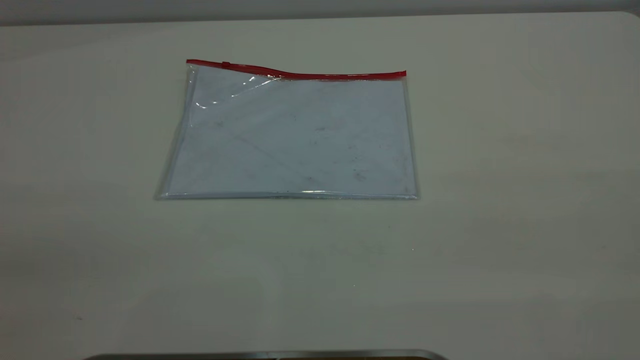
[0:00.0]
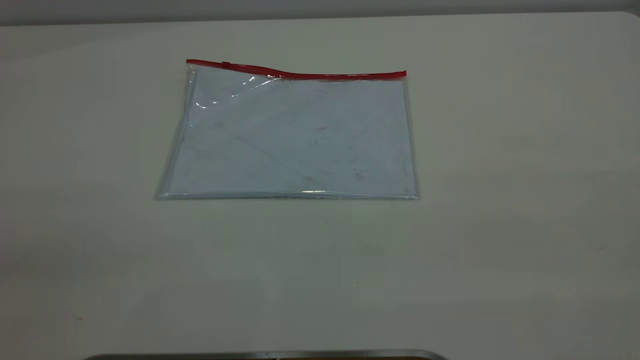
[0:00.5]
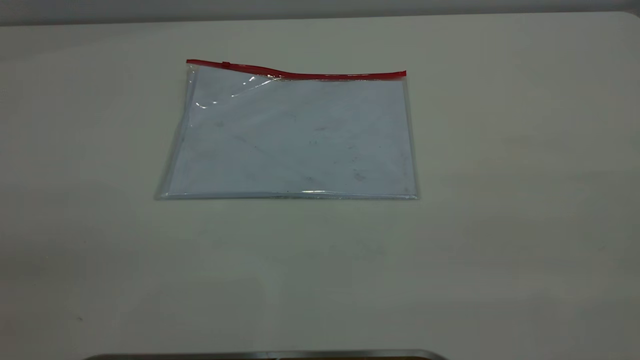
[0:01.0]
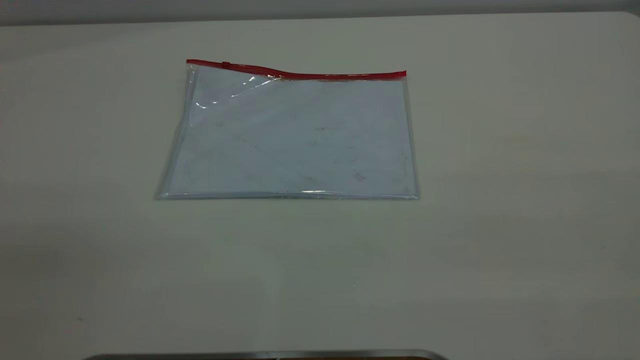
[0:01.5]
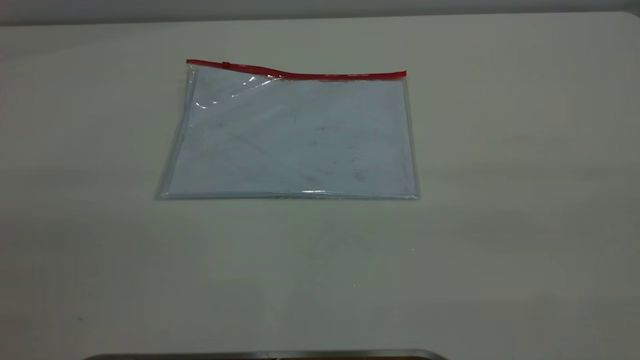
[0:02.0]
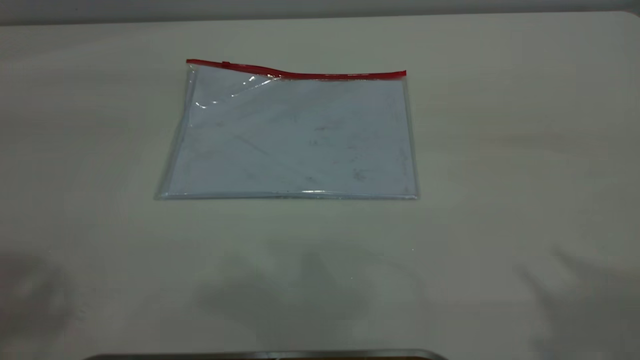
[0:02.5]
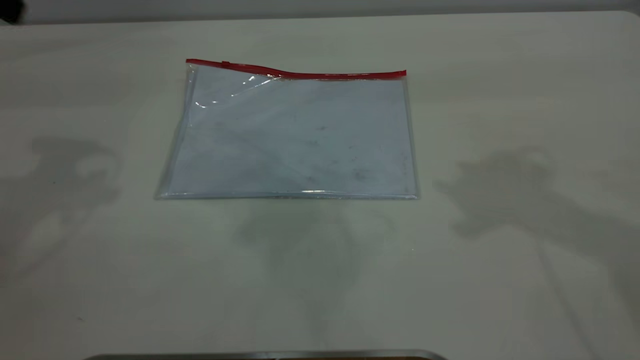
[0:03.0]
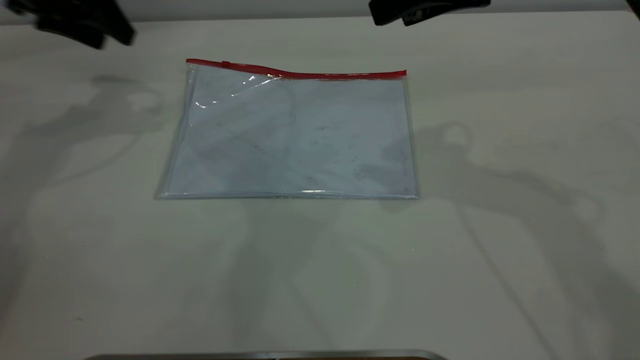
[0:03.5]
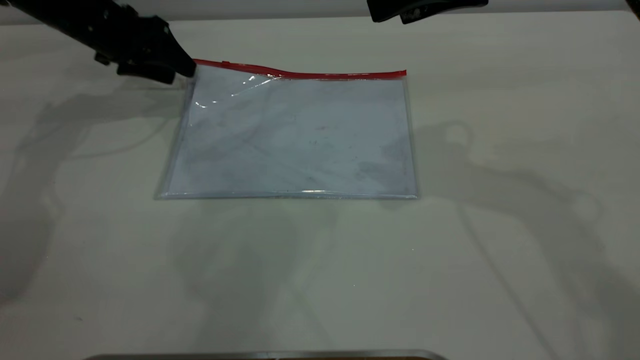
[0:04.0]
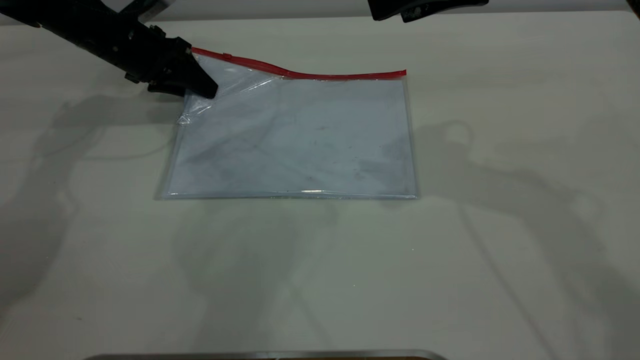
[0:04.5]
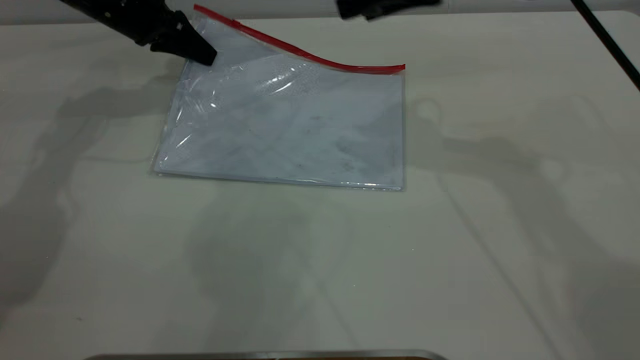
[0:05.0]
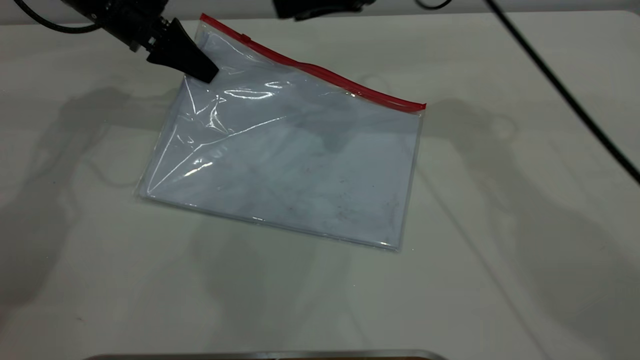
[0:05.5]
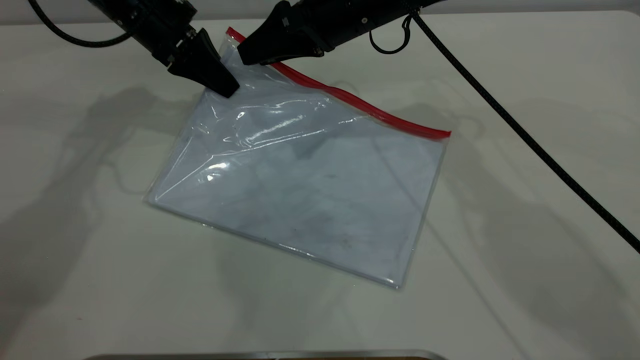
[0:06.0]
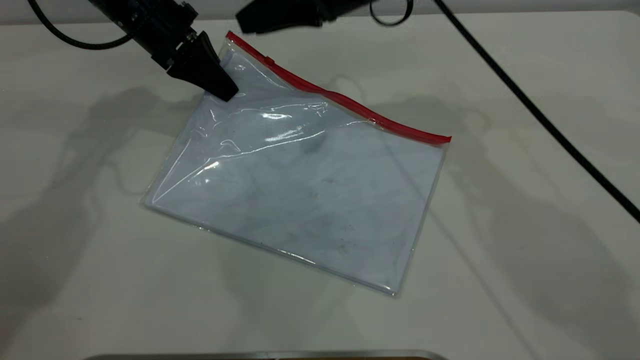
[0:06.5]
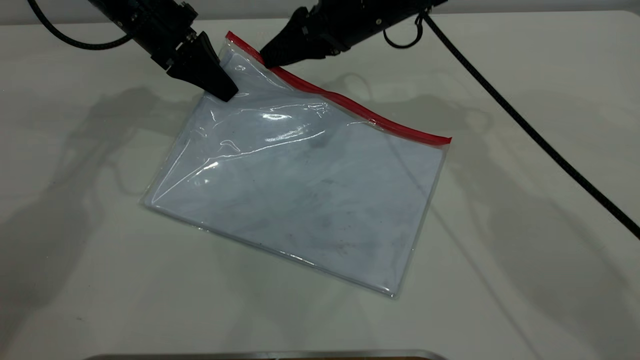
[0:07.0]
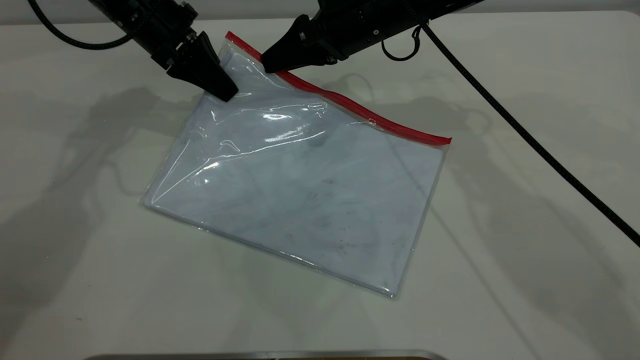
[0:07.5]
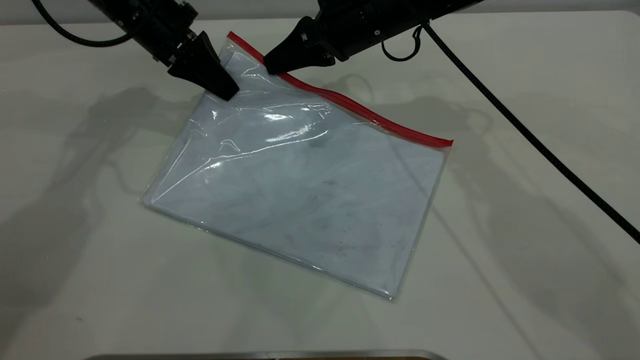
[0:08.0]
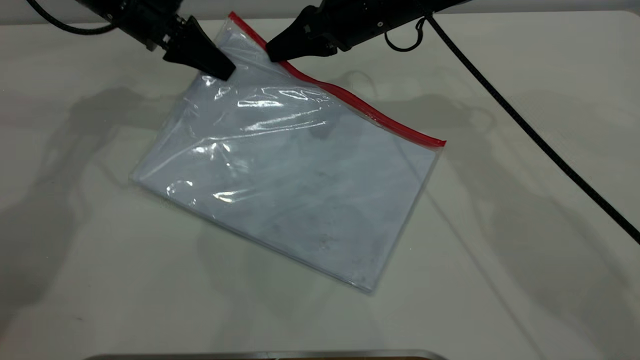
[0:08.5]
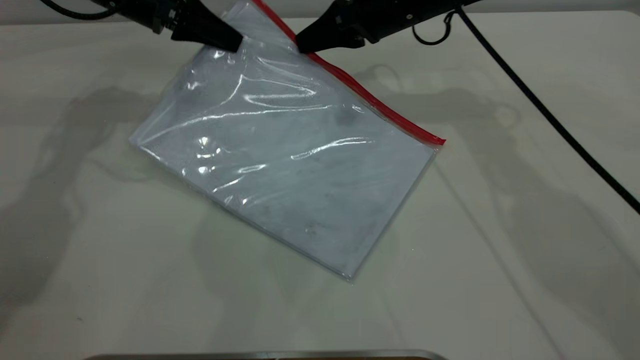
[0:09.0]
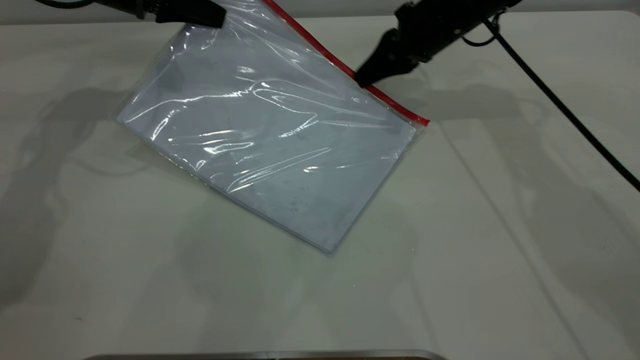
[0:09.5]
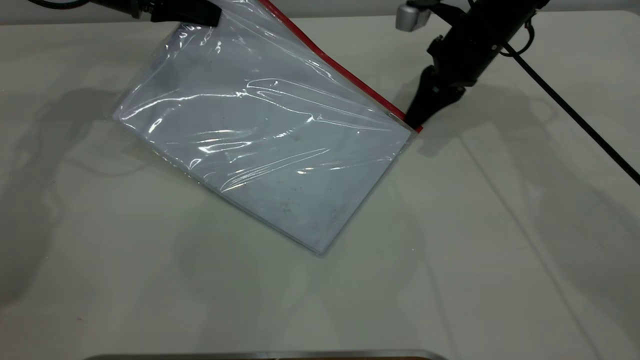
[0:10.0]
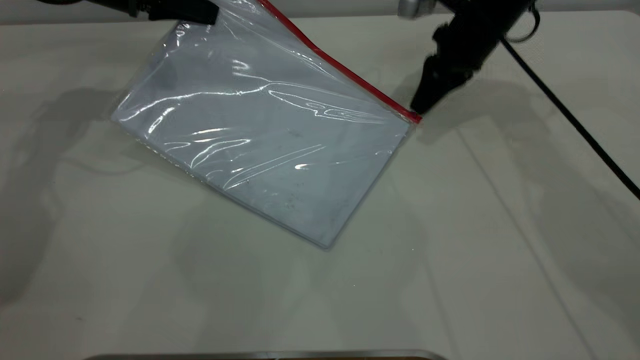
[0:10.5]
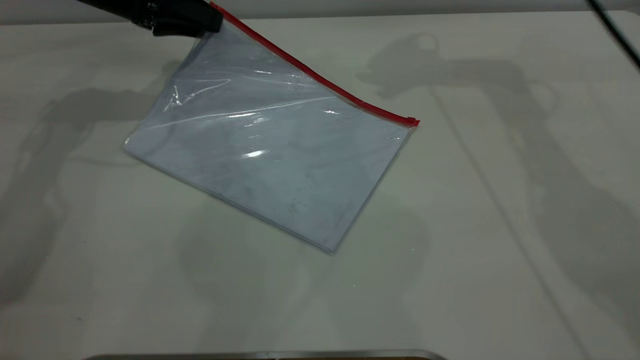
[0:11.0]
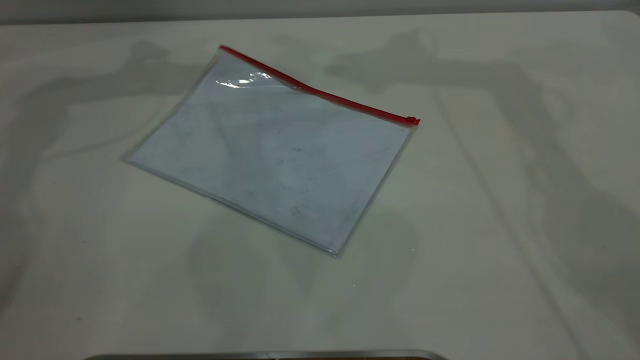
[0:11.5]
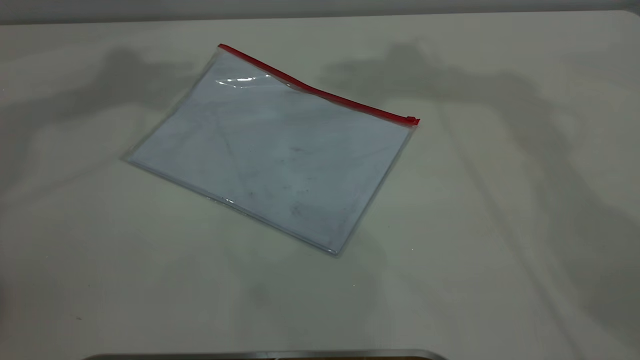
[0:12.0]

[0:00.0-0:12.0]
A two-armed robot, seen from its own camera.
Step, 0:00.0 to 0:04.5: Pick up the transparent plastic bag with the left gripper.
Step, 0:05.0 to 0:10.5: Pulling up the zipper on the transparent plastic bag with the right gripper to close it.
Step, 0:11.0 to 0:11.5: Place the transparent plastic bag.
0:02.0 to 0:04.0: The right gripper goes some 35 cm forward, while the left gripper goes approximately 60 cm forward and downward.
0:04.0 to 0:06.0: The right gripper is displaced to the left, downward and forward by approximately 20 cm; the left gripper shifts some 10 cm to the right, and closes.
0:06.0 to 0:08.0: The right gripper closes.
0:08.0 to 0:10.0: The left gripper goes approximately 5 cm to the left; the right gripper goes roughly 15 cm to the right.
0:10.0 to 0:12.0: The two grippers go some 35 cm upward. The left gripper opens up; the right gripper opens.

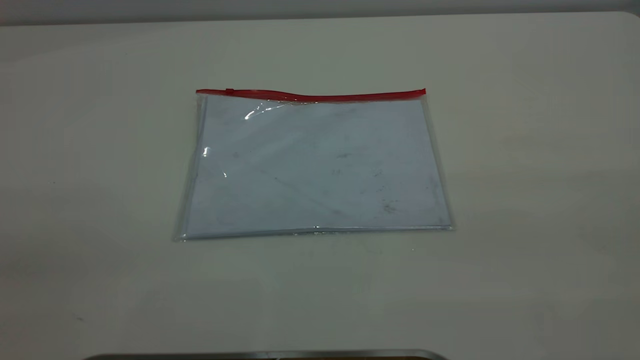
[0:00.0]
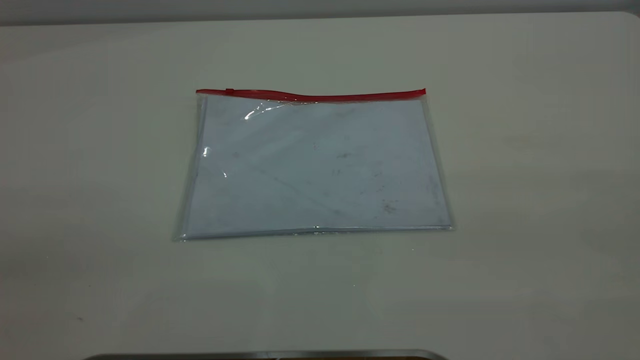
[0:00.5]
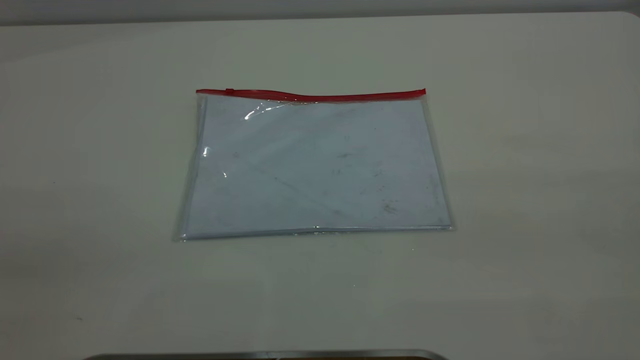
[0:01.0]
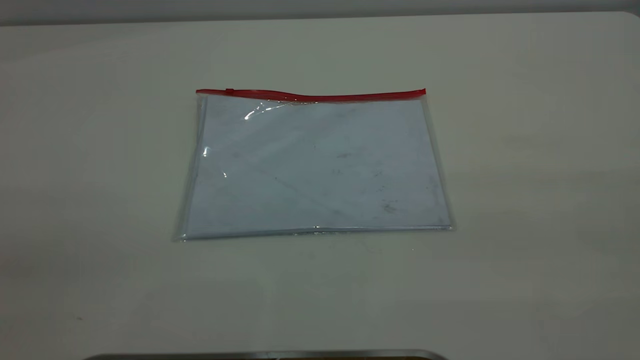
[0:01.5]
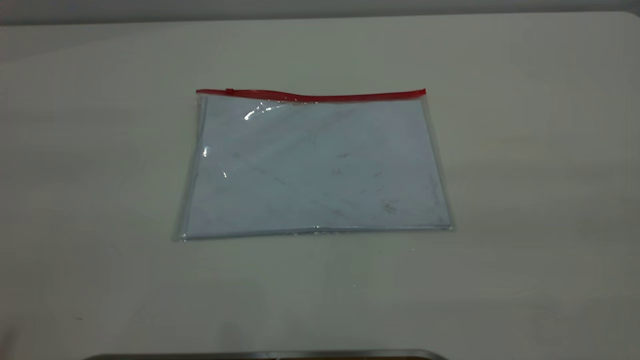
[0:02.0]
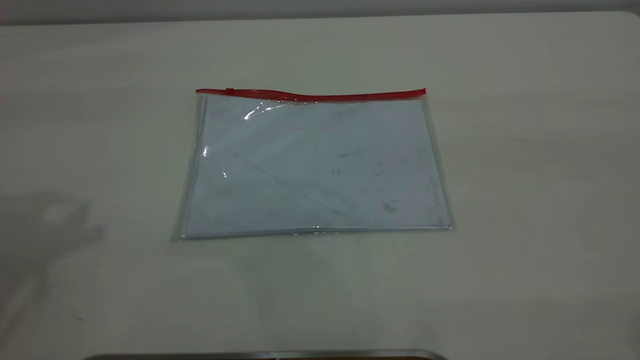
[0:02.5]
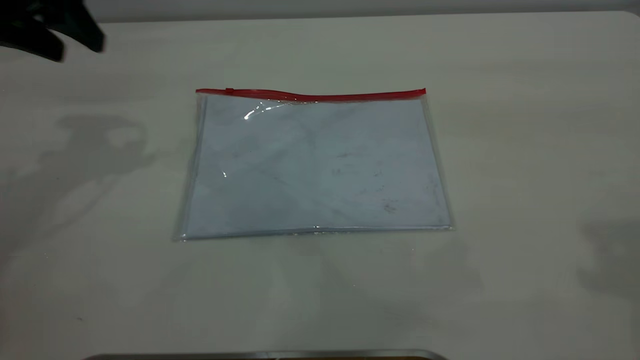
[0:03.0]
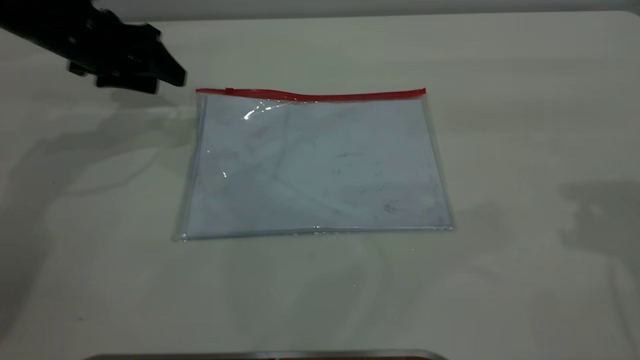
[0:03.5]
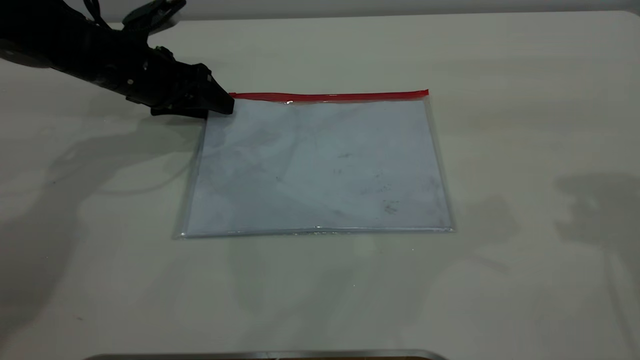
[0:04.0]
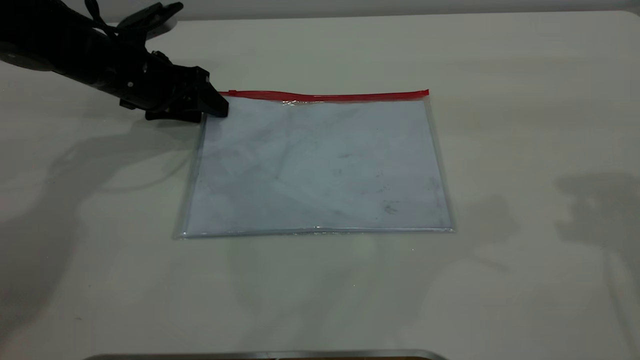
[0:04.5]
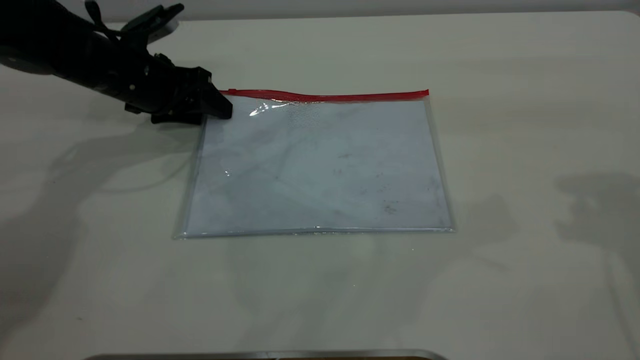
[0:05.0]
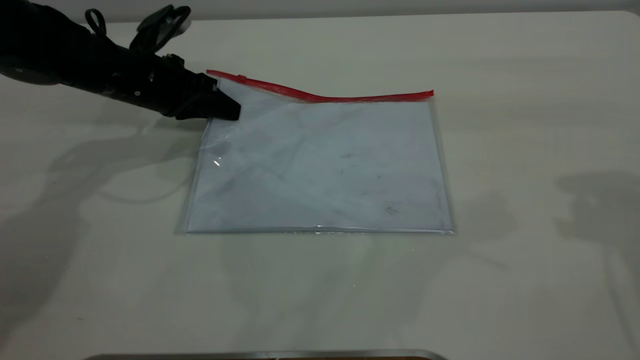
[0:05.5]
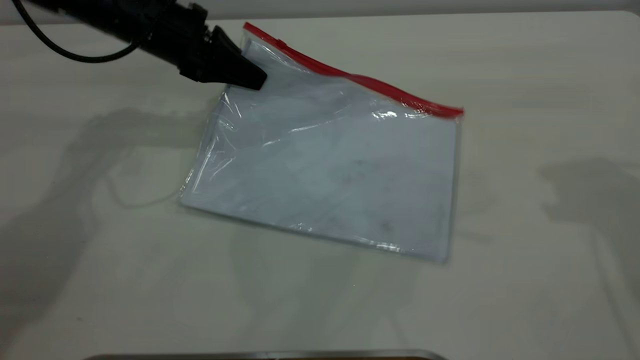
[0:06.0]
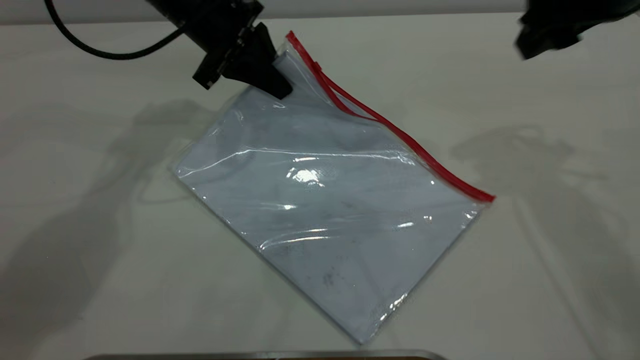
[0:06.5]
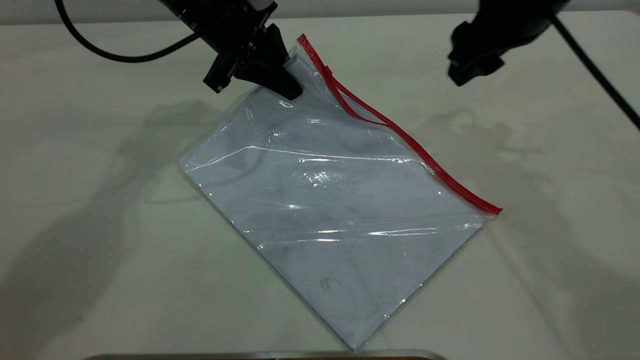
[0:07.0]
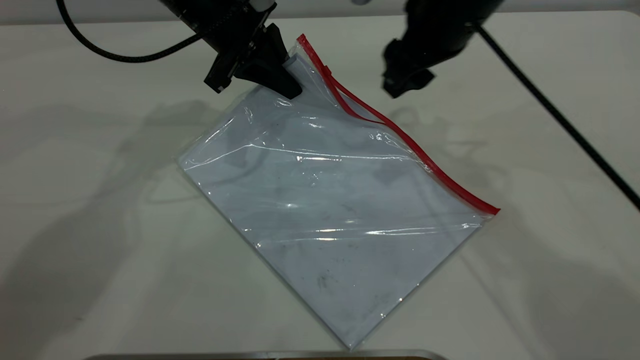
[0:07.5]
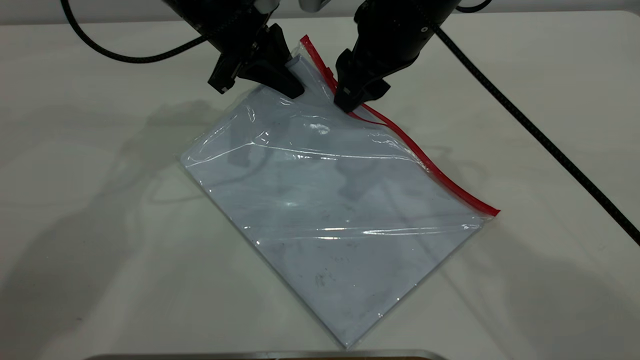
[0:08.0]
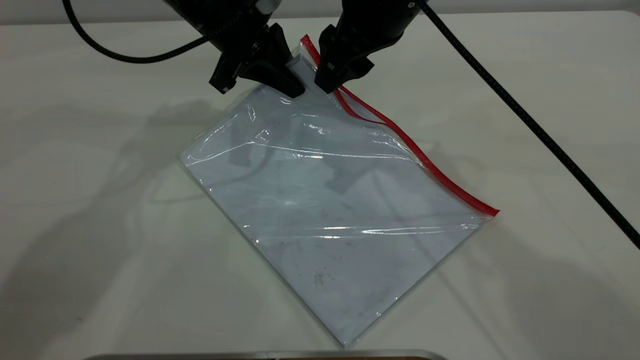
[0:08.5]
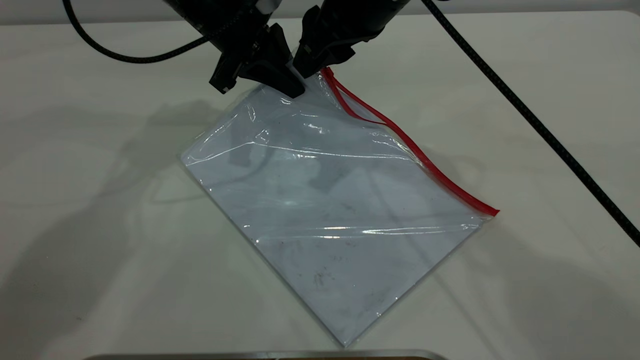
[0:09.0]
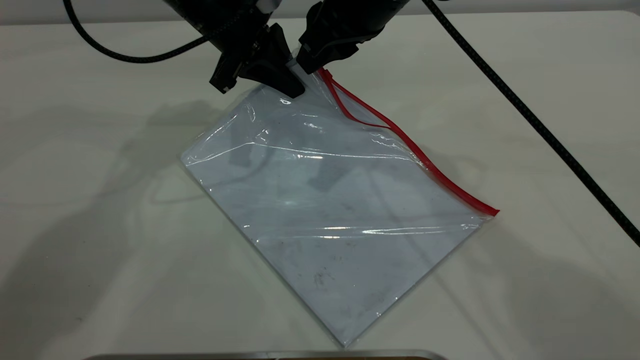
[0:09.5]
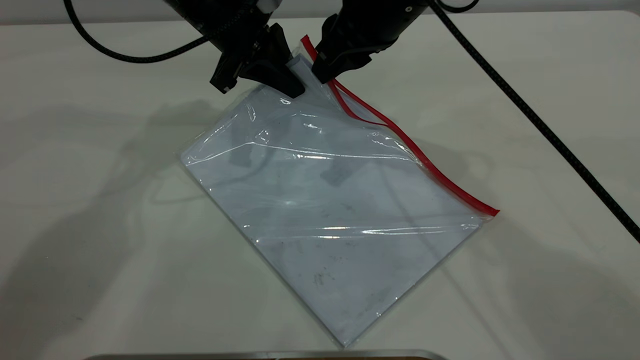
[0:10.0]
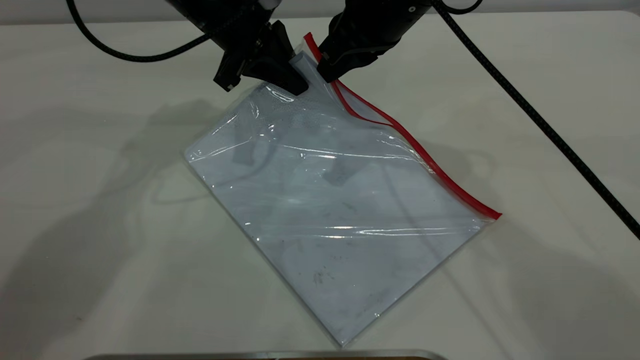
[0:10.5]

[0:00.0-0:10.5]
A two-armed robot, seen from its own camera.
Step, 0:00.0 to 0:05.5: Pick up the transparent plastic bag with the left gripper.
0:02.0 to 0:04.0: The left gripper shifts some 50 cm forward and downward.
0:04.0 to 0:06.5: The right gripper is displaced forward, to the left and downward by approximately 15 cm. The left gripper goes about 15 cm to the right and upward, and closes.
0:06.5 to 0:08.5: The right gripper shifts roughly 15 cm to the left.
0:08.5 to 0:10.5: The right gripper closes its fingers.
